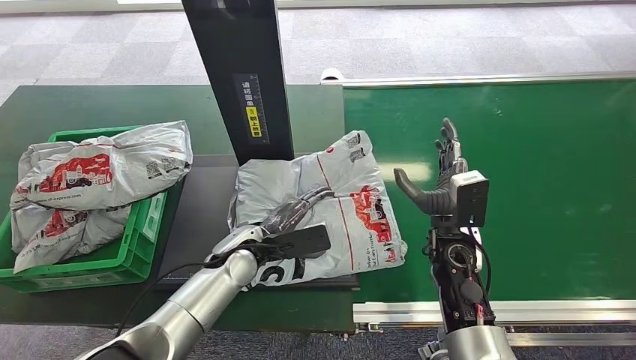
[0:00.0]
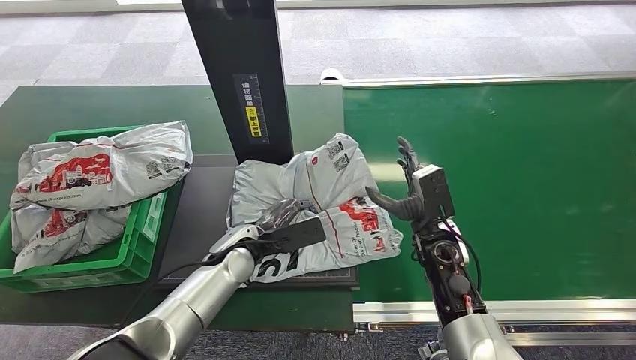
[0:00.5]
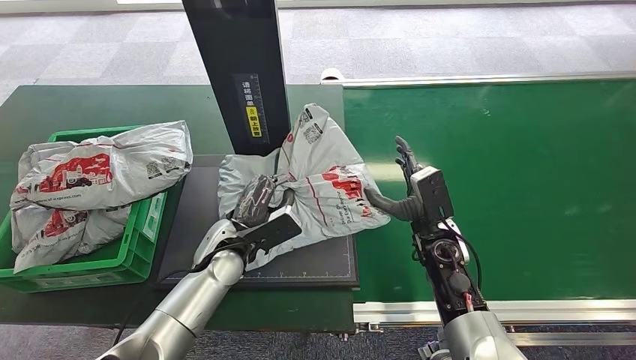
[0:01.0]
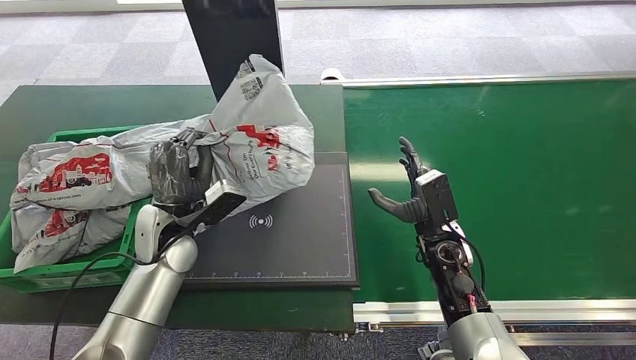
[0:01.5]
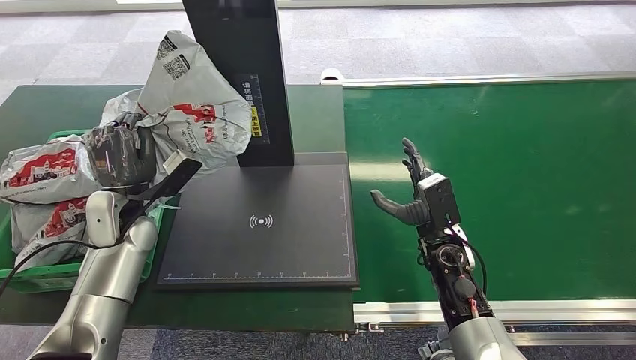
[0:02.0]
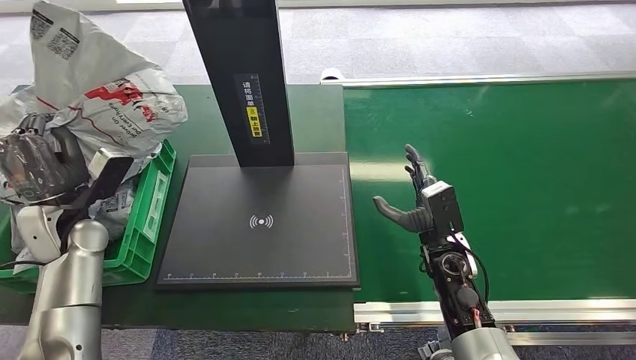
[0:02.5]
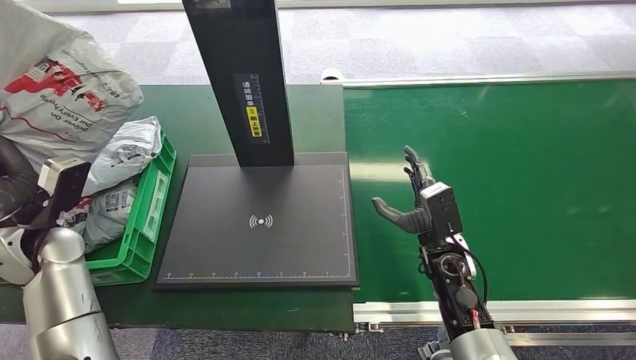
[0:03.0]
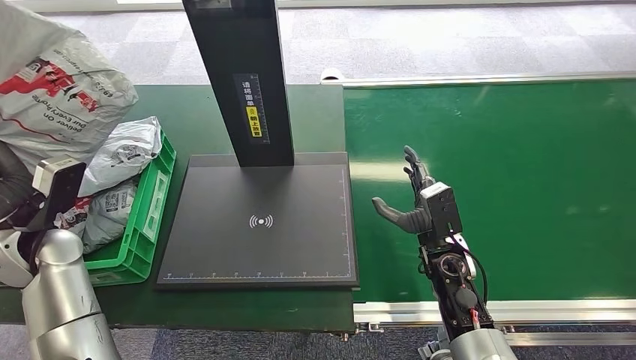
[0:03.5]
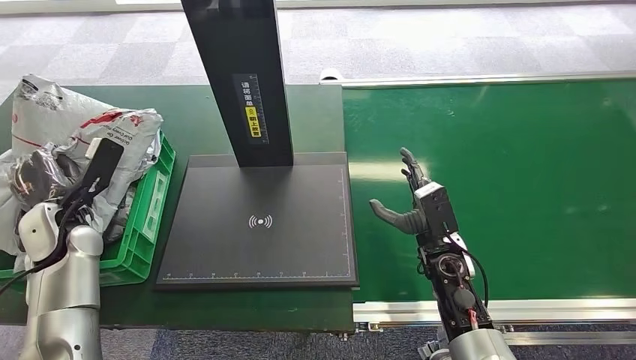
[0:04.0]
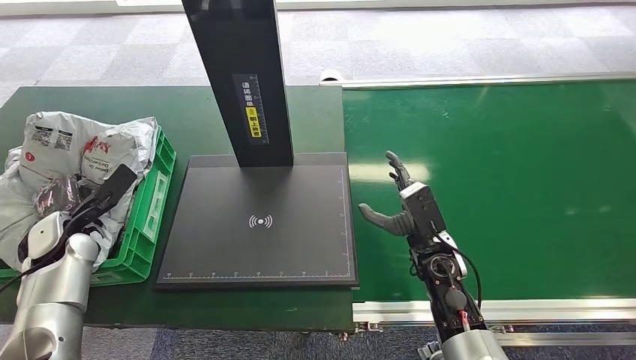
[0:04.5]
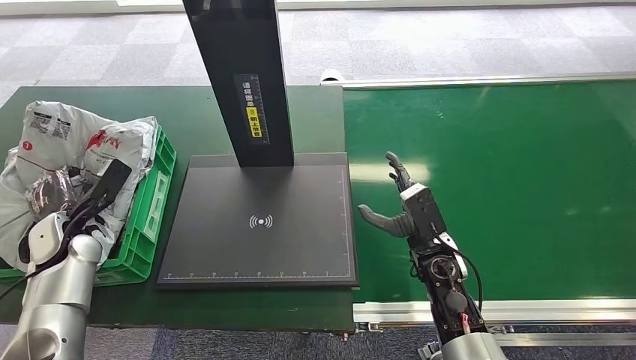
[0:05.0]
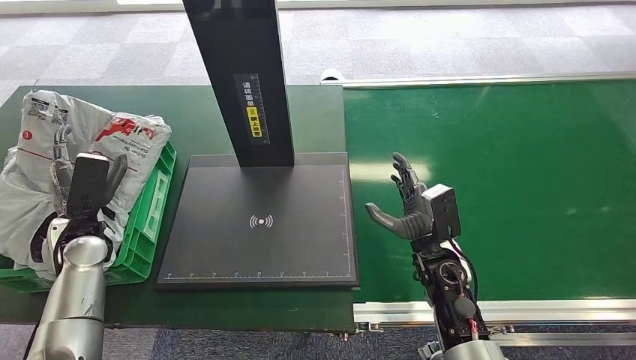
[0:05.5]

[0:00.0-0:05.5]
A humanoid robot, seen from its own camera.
Step, 0:01.5 to 0:05.5: Place the package into the parcel locker.
0:03.5 to 0:05.5: The left hand shifts about 10 cm downward.
